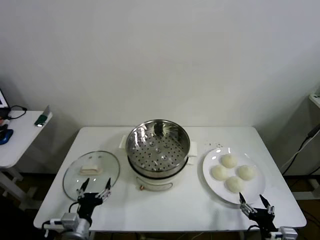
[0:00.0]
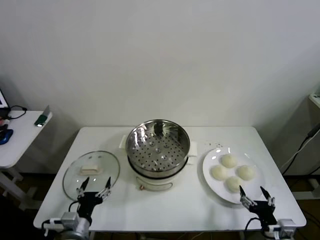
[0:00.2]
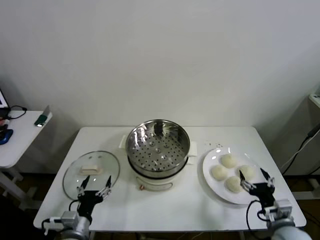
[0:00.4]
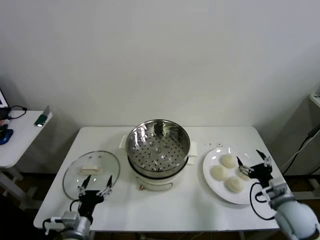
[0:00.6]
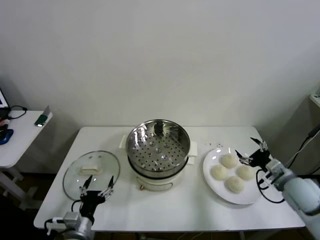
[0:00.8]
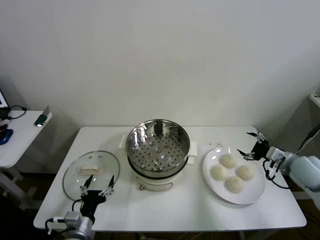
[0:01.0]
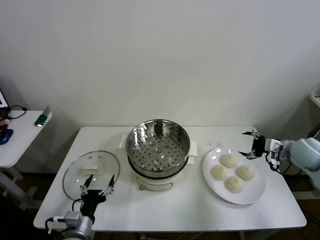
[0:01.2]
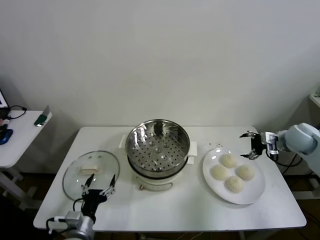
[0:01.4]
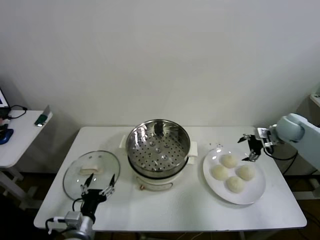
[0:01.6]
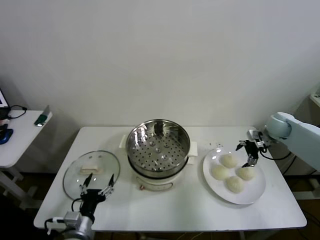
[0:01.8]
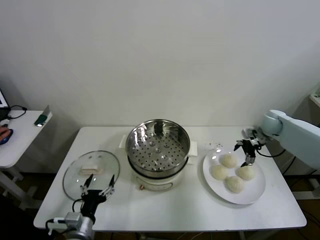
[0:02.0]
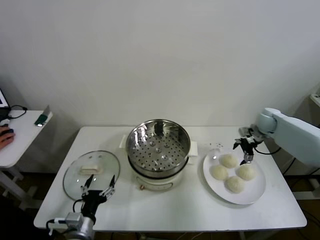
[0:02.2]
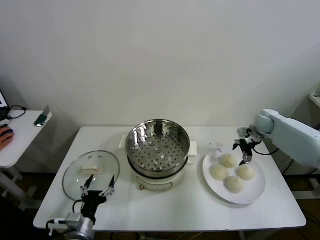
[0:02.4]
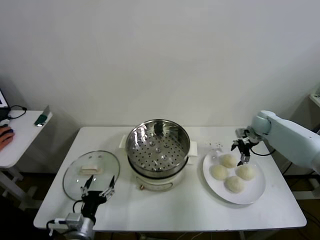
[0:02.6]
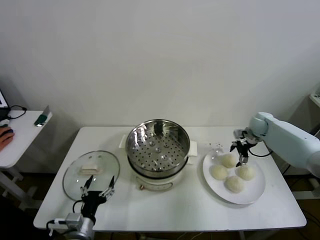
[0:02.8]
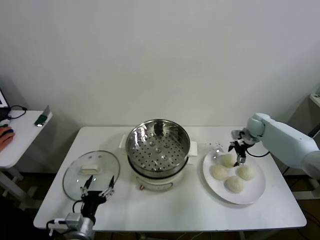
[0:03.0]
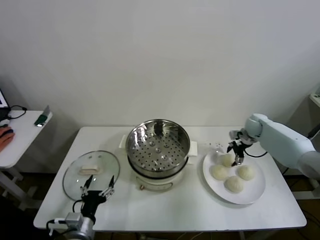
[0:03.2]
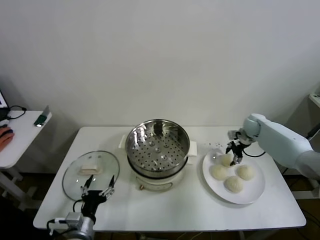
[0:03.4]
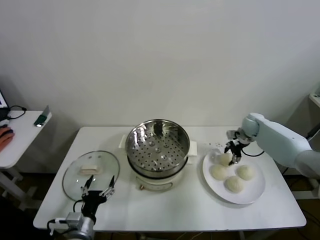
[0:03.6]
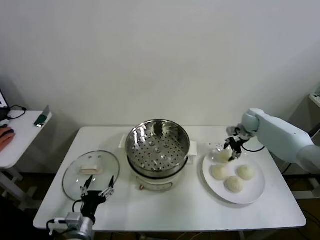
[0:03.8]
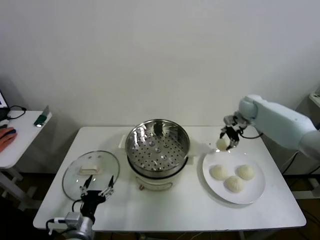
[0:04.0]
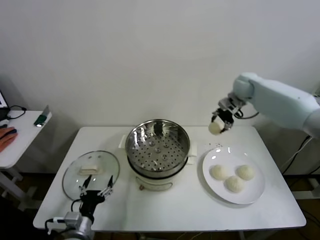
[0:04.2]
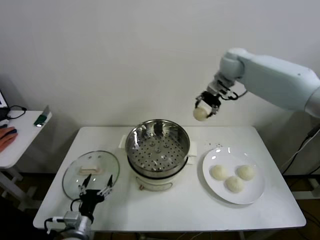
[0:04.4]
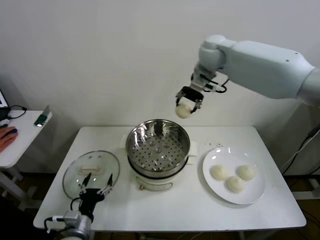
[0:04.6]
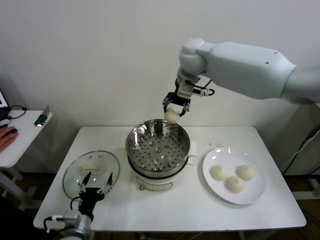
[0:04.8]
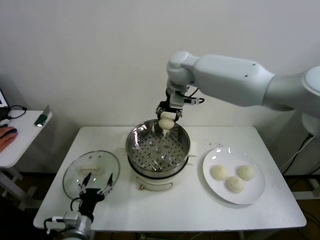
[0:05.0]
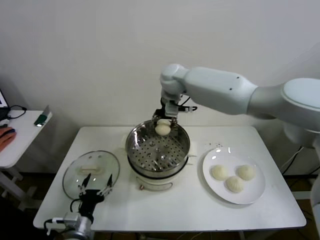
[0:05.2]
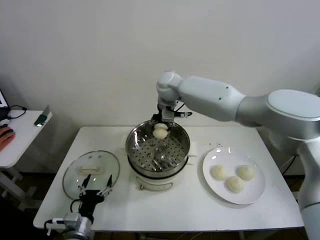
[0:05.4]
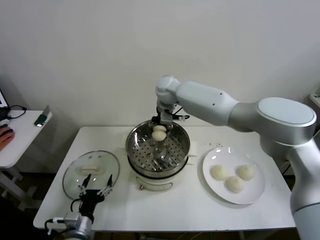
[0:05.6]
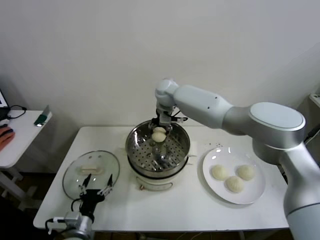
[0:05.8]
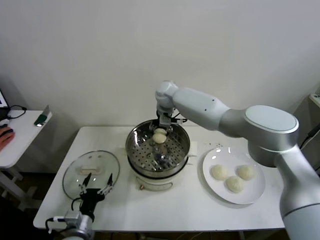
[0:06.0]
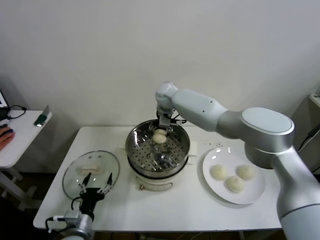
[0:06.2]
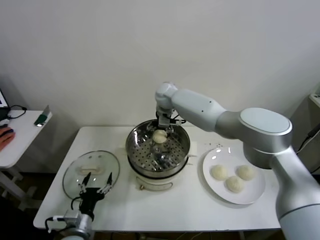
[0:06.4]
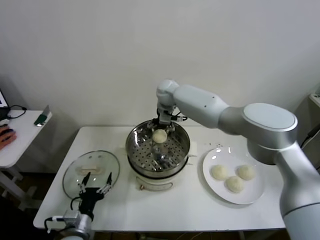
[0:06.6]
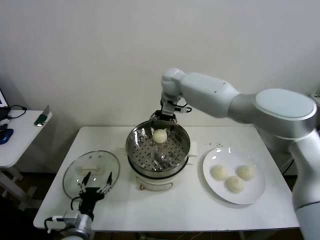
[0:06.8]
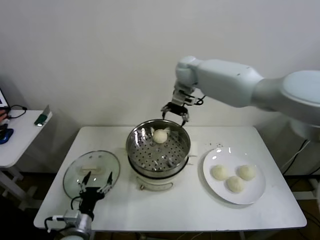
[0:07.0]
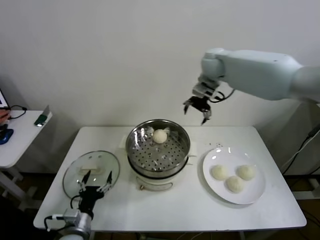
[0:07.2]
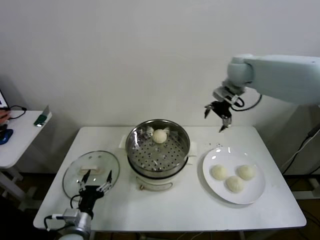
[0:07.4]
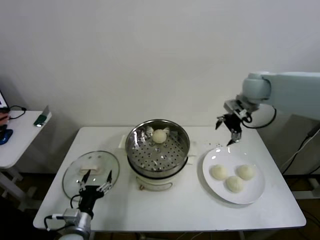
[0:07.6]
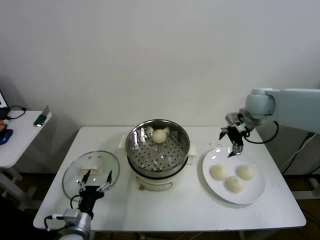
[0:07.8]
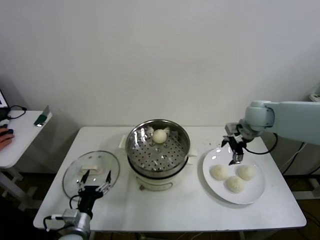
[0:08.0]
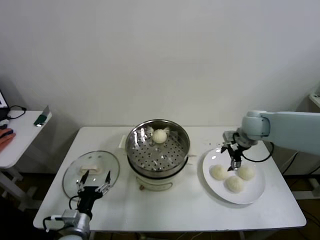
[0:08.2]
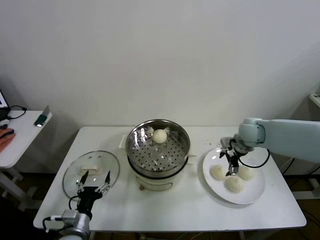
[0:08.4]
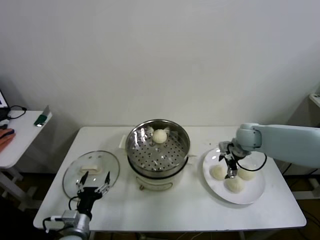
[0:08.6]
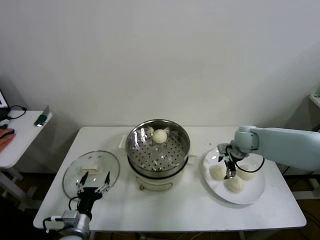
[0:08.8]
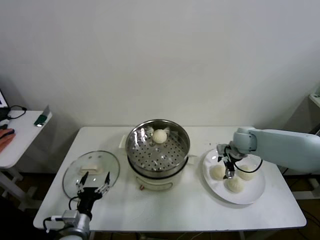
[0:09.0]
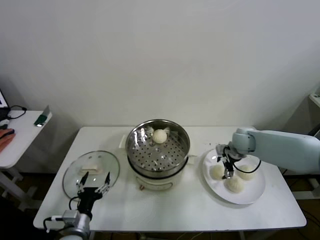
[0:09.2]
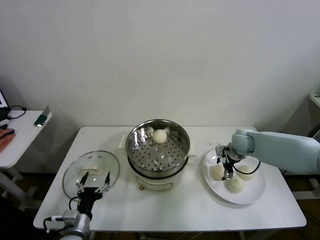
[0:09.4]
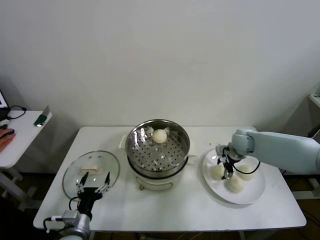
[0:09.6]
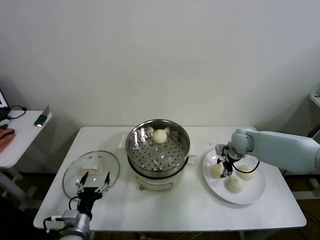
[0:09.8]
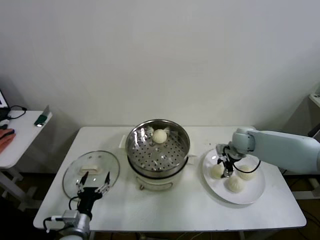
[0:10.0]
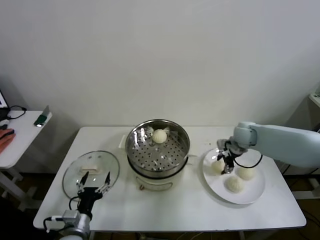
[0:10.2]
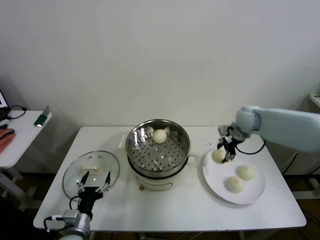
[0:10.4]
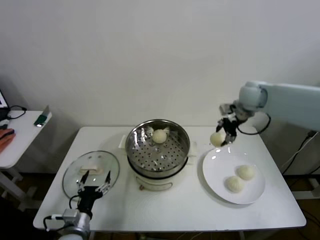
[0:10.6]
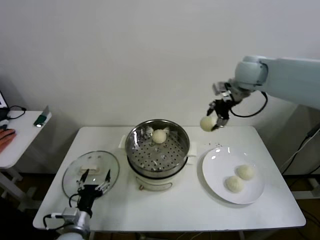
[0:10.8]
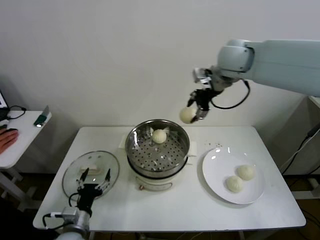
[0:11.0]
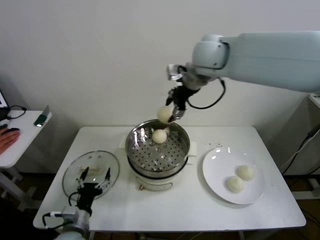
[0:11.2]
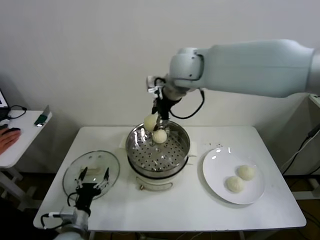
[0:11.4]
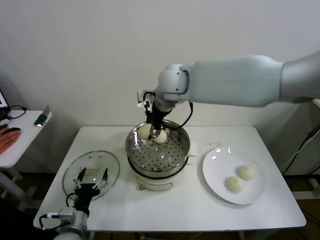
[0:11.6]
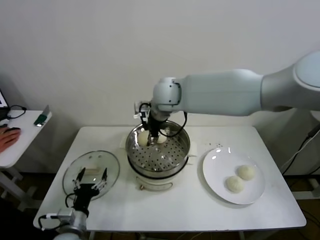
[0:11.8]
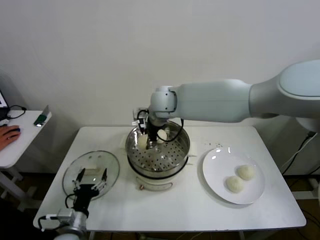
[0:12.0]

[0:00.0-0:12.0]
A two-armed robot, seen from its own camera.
Step, 0:00.0 to 0:03.4: Grasp the baozi in the plate with right gripper.
Step, 0:03.6 to 0:06.6: Place the baozi on the steamer with right gripper.
Step, 0:06.8 to 0:09.6: Grasp the baozi in the plate with right gripper.
0:01.6 to 0:03.0: The right gripper shifts roughly 10 cm forward and downward.
0:03.0 to 0:04.4: The right gripper shifts approximately 35 cm upward and to the left, and closes.
0:04.4 to 0:06.0: The right gripper goes some 25 cm to the left and downward.
0:06.0 to 0:07.6: The right gripper moves to the right, some 30 cm, and opens up.
0:07.6 to 0:09.0: The right gripper travels downward by roughly 20 cm.
0:09.0 to 0:10.4: The right gripper travels upward by approximately 15 cm, and closes up.
0:10.4 to 0:12.0: The right gripper shifts about 30 cm to the left.

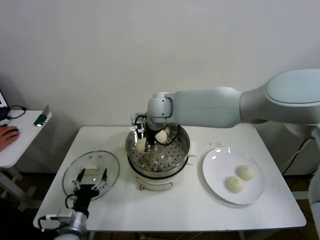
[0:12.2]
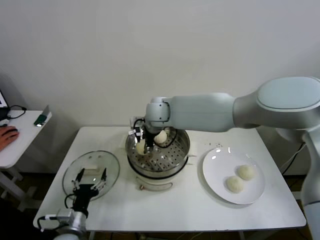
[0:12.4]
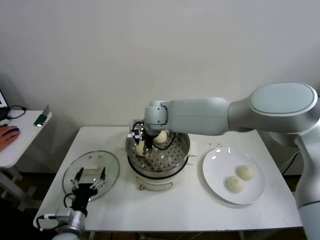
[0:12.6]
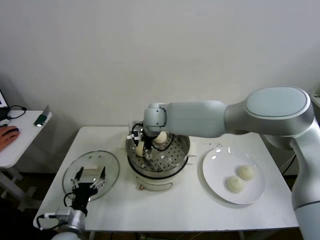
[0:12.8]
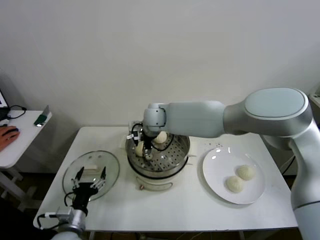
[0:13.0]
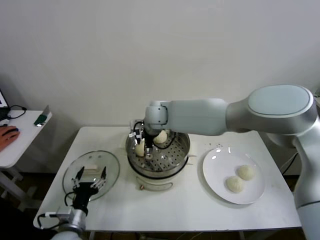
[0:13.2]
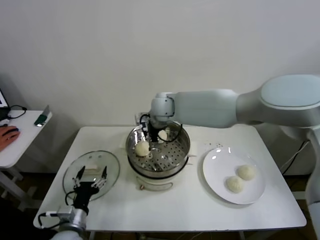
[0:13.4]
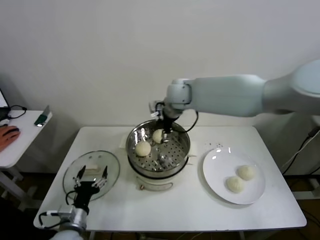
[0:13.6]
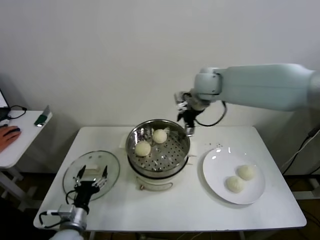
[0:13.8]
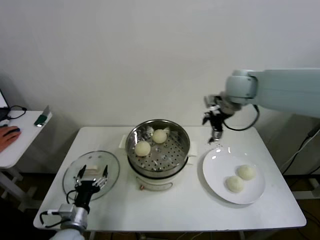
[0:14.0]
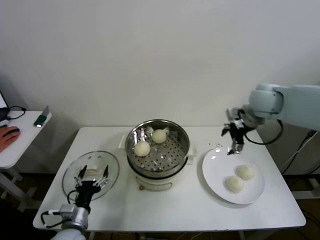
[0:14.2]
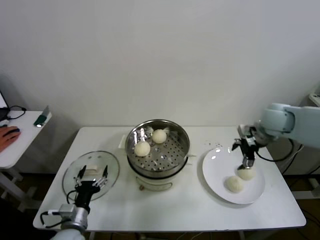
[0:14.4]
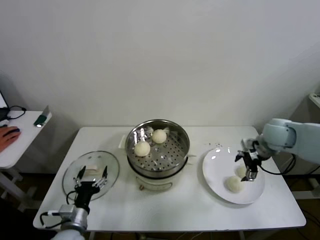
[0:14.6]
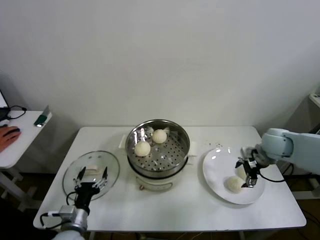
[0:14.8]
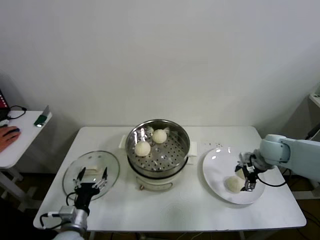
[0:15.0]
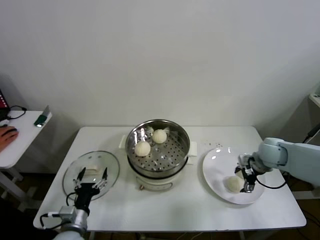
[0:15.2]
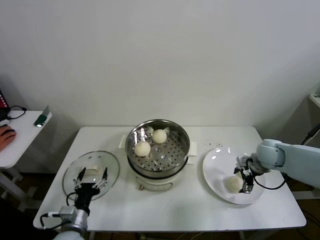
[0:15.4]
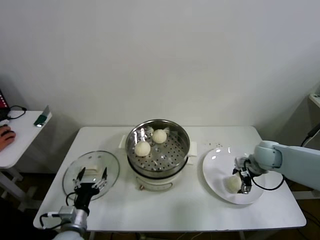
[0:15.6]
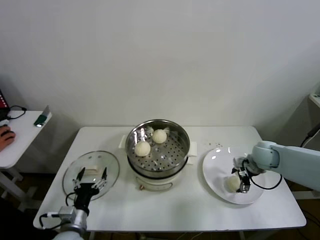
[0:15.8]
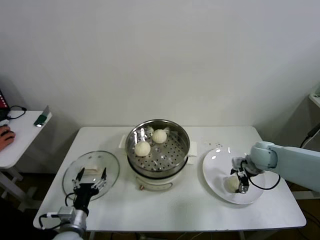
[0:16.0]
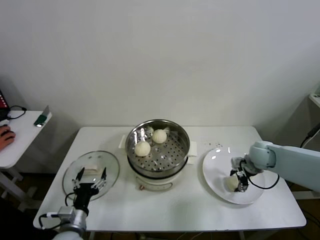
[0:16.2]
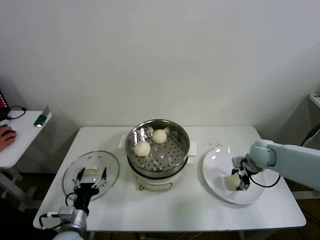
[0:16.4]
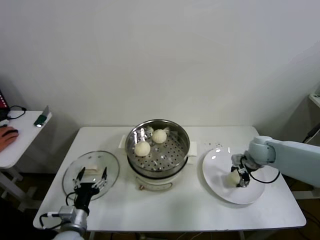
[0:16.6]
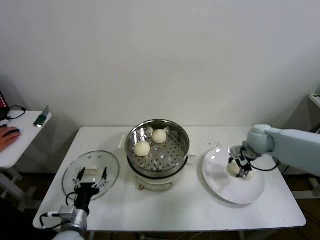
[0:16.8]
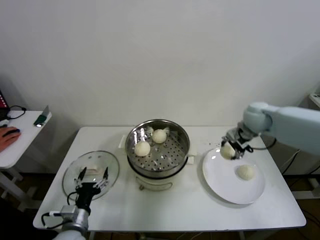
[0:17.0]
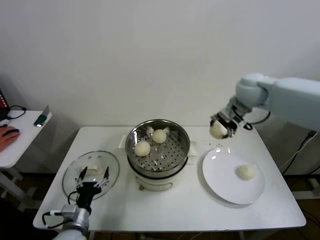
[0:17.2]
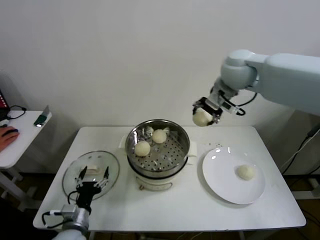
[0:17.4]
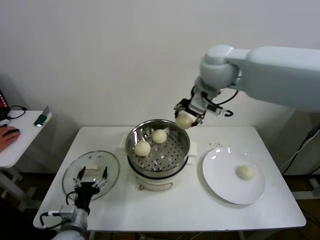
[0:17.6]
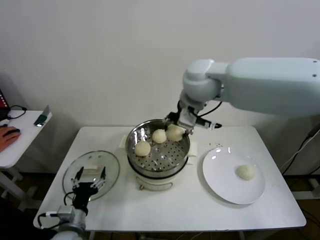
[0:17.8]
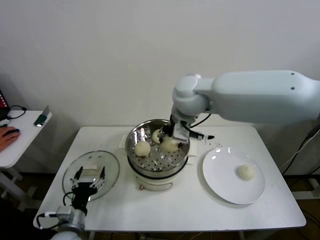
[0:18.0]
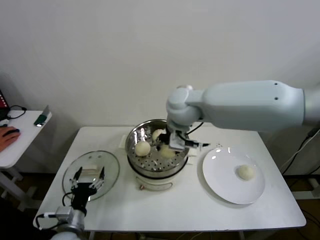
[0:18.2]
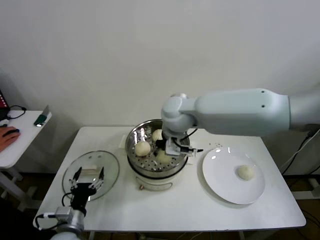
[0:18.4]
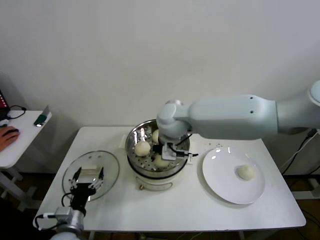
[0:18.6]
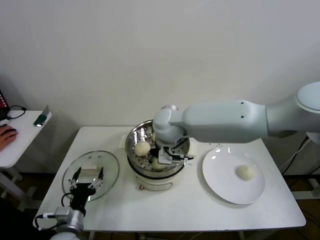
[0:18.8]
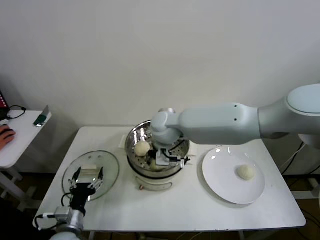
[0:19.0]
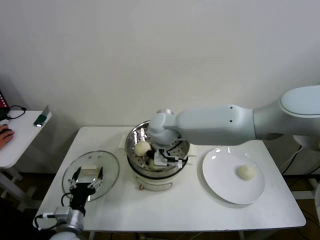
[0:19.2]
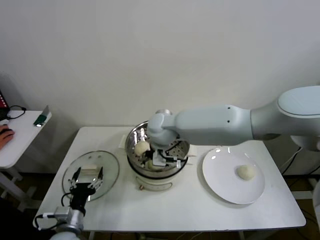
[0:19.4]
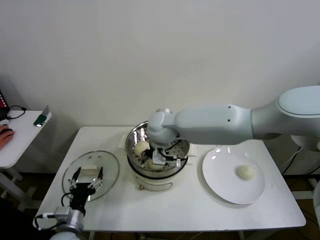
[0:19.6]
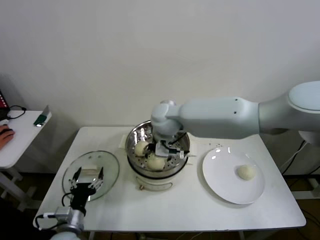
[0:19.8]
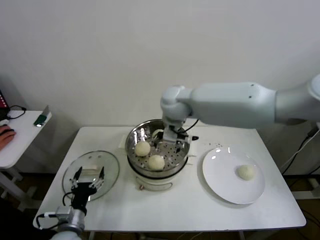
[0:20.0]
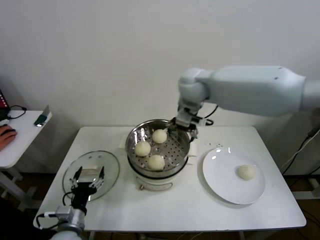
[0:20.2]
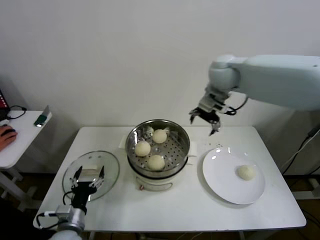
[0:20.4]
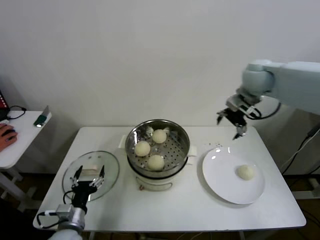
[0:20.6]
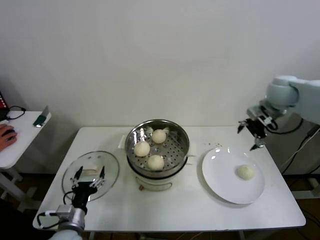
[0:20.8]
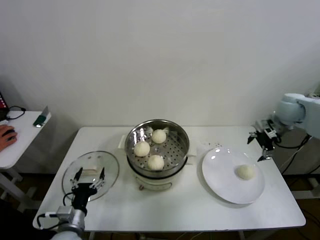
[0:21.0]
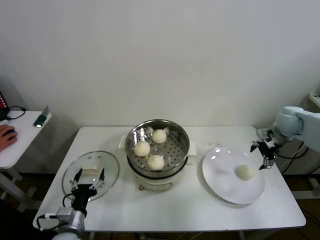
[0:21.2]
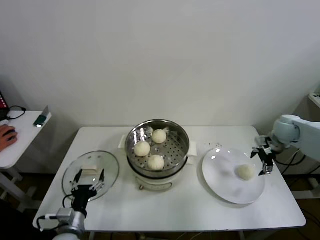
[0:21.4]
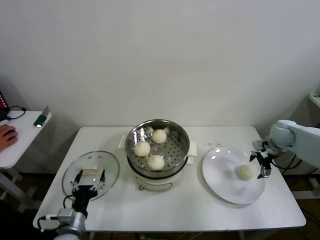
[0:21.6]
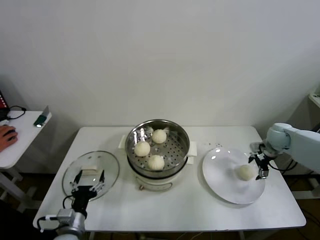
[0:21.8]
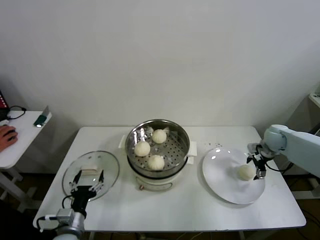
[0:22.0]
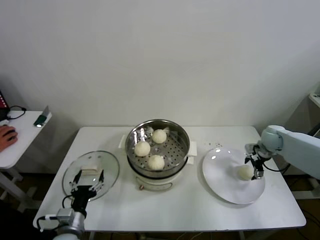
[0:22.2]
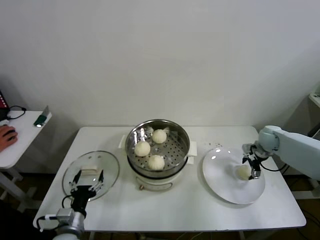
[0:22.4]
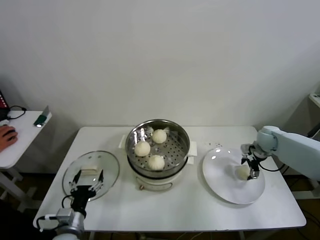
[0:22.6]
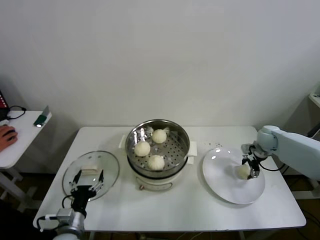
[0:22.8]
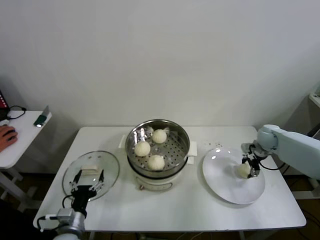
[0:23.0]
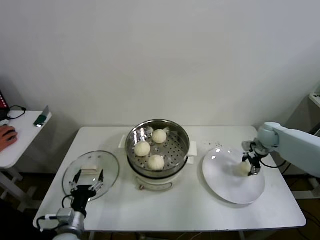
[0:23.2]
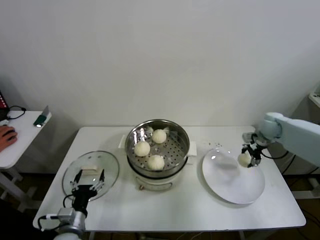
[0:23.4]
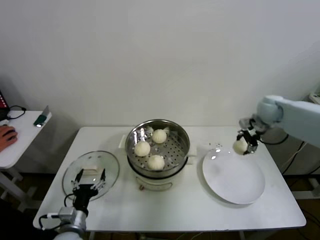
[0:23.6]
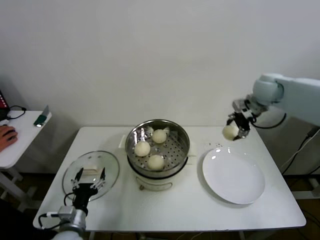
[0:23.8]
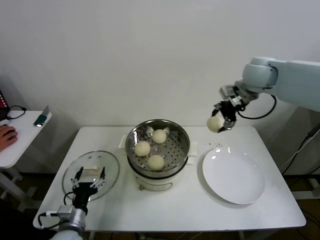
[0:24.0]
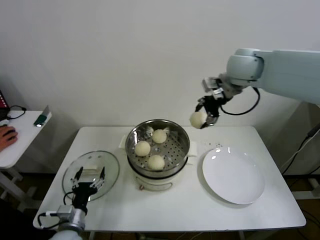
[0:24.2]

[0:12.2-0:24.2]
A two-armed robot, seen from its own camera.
Step, 0:13.4 to 0:16.2: Grasp the baozi in the plate with right gripper.
Step, 0:16.4 to 0:19.6: Place the baozi on the steamer with right gripper.
Step, 0:19.8 to 0:22.8: Grasp the baozi in the plate with right gripper.
0:12.2 to 0:13.8: The right gripper moves to the right and upward, roughly 20 cm, and opens up.
0:13.8 to 0:15.2: The right gripper travels downward, to the right and backward by approximately 30 cm.
0:15.2 to 0:16.6: The right gripper closes up.
0:16.6 to 0:18.2: The right gripper is displaced to the left and upward by roughly 35 cm.
0:18.2 to 0:19.8: The right gripper opens up.
0:19.8 to 0:21.2: The right gripper goes roughly 40 cm to the right.
0:21.2 to 0:22.6: The right gripper moves downward, roughly 10 cm.
0:22.6 to 0:24.2: The right gripper is displaced upward and to the left by about 40 cm, and closes.
